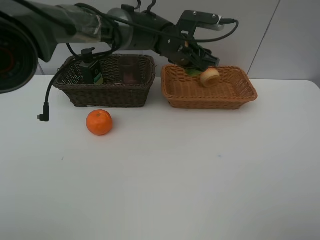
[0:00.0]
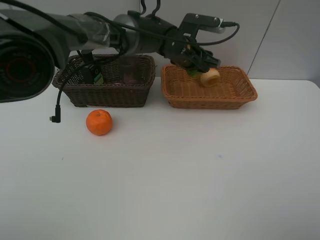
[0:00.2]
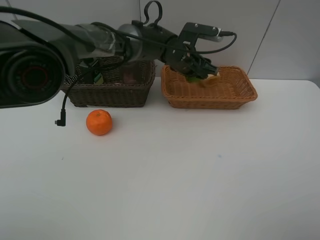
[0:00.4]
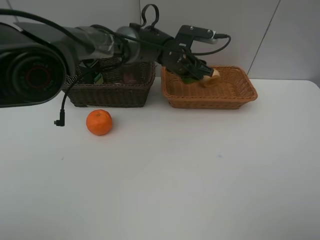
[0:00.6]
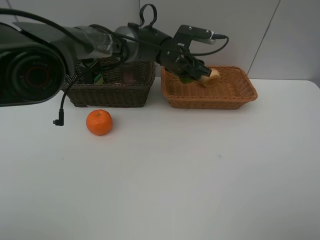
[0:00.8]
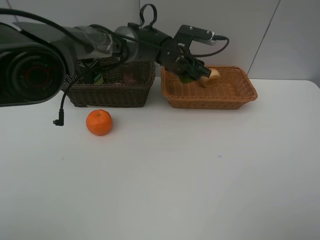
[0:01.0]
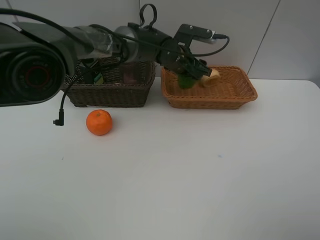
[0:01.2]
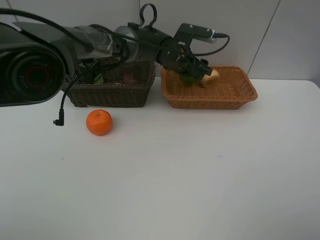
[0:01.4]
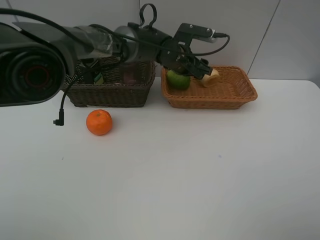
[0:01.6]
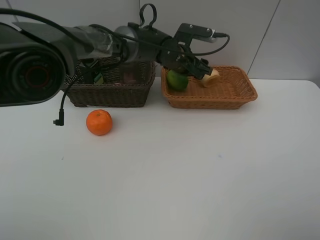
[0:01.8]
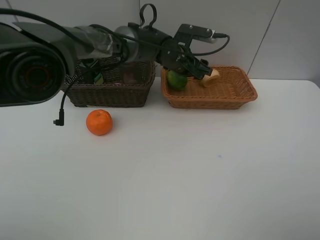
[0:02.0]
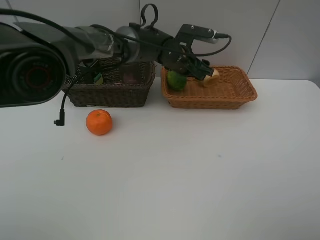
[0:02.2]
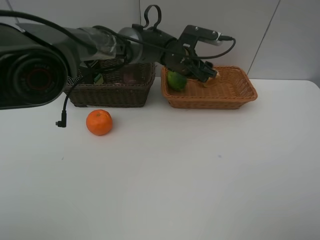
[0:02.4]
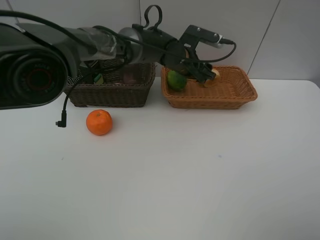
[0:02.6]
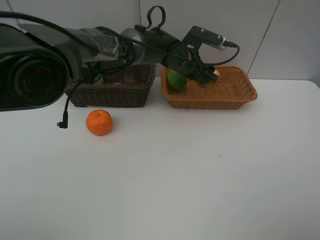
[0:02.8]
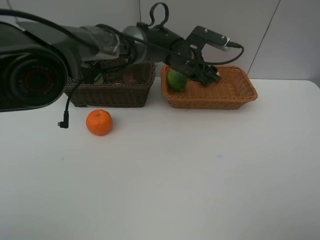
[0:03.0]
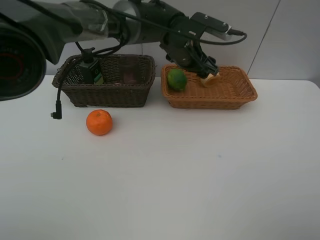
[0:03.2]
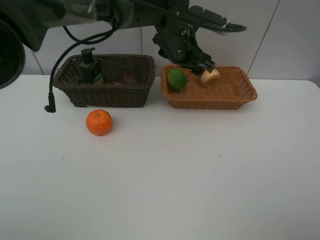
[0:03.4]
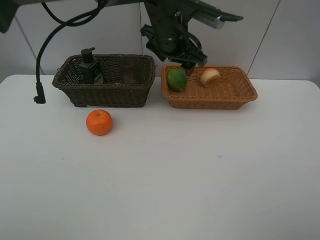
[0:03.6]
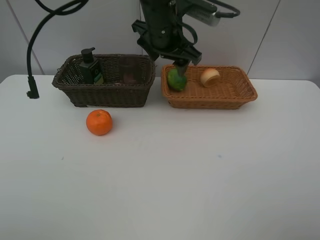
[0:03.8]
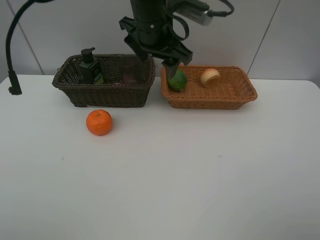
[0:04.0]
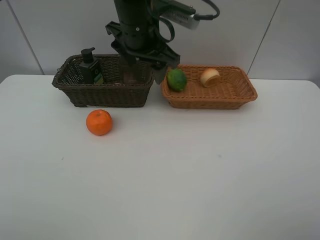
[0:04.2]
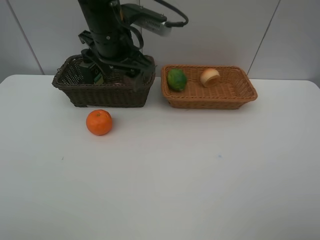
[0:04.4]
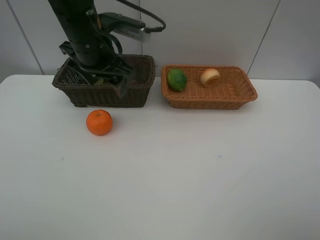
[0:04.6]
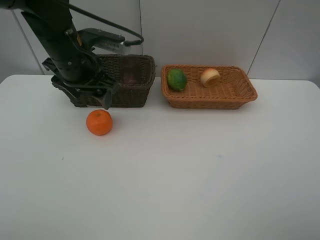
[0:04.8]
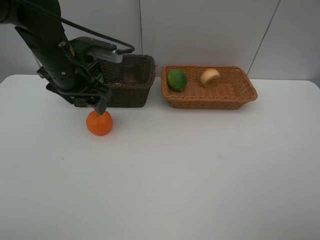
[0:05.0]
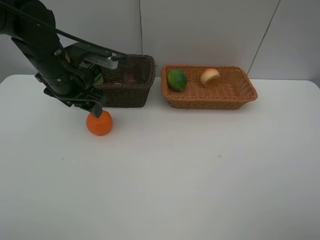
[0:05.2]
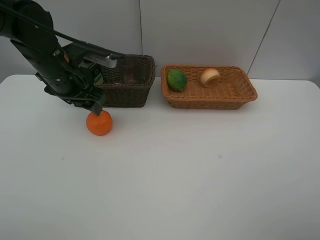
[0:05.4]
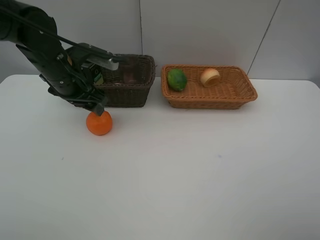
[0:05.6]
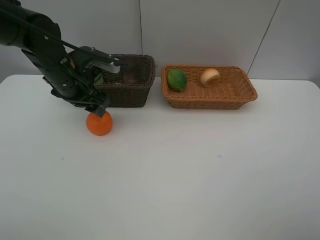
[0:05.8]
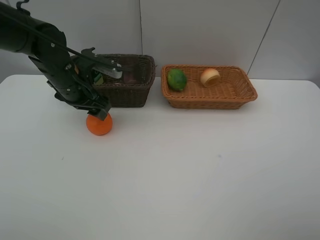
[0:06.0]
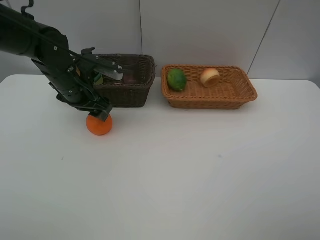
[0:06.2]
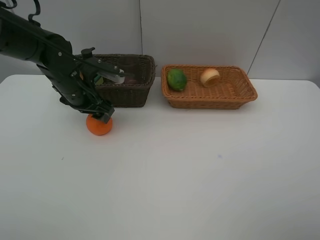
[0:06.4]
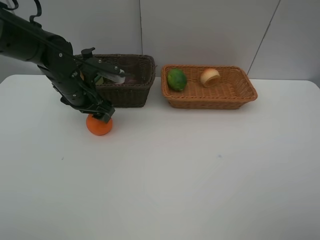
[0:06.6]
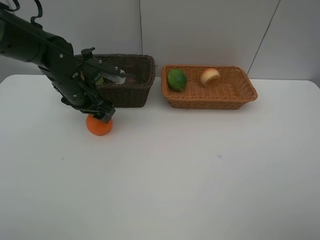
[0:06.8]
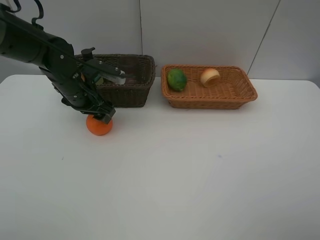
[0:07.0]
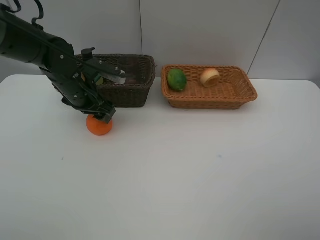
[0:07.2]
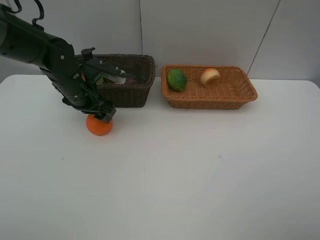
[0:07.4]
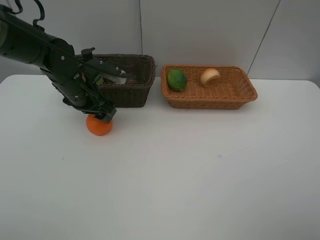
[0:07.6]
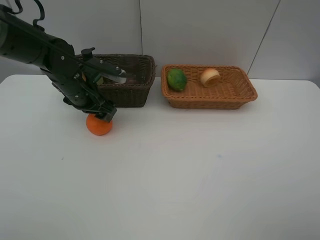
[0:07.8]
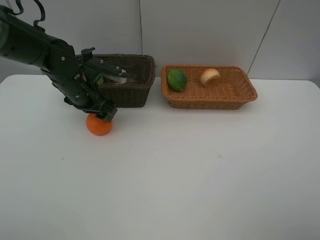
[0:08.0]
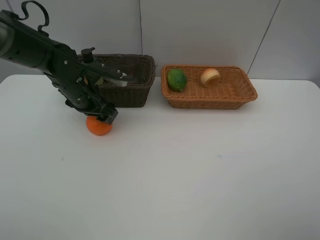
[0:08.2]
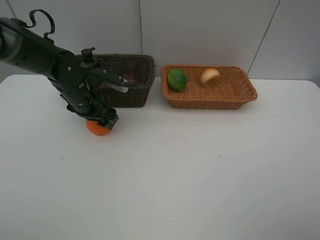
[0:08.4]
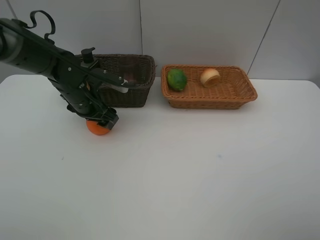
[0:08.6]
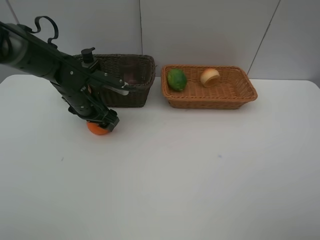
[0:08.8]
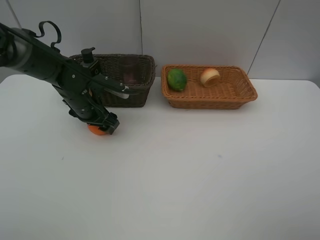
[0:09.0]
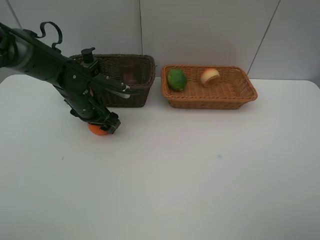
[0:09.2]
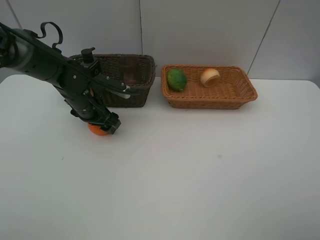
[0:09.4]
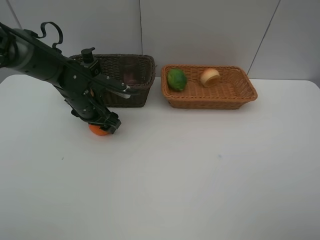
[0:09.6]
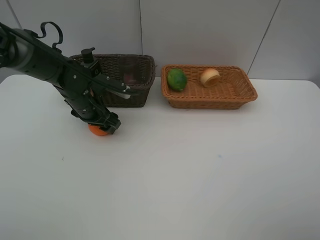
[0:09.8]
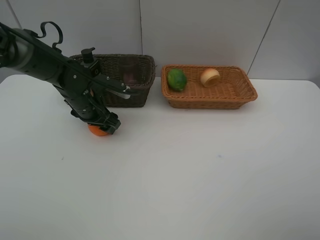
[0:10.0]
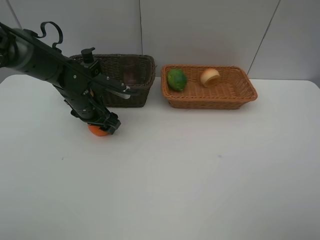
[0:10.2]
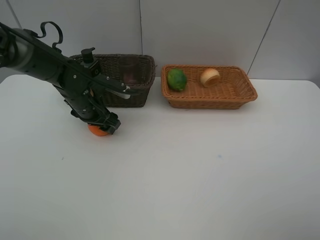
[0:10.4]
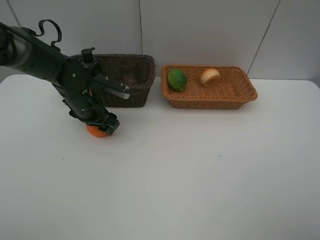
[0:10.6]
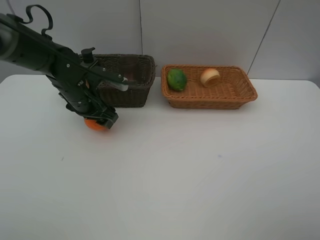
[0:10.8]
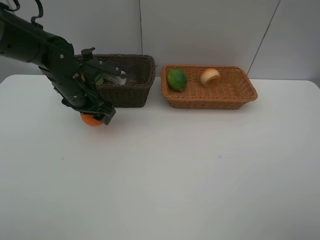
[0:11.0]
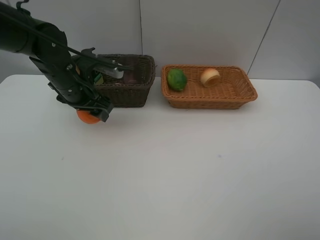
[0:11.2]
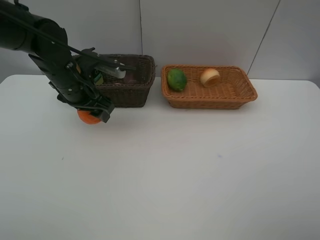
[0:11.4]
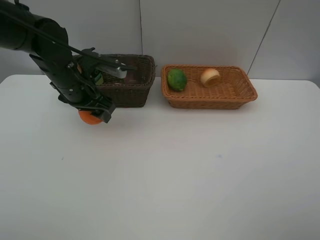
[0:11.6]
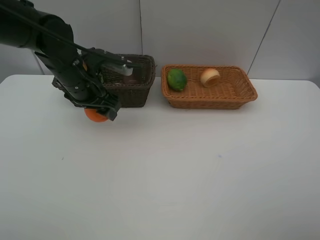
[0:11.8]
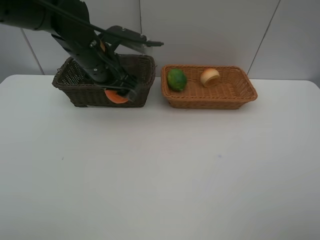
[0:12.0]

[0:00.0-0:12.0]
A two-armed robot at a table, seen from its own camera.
Task of the whole recording: place multiple objects separately in different baskets.
0:00.0 to 0:03.0: The grippers make only small movements.
0:03.0 to 0:04.4: The left gripper heads to the left, upward and backward, covering some 20 cm.
0:04.4 to 0:06.0: The left gripper is displaced downward and to the left by some 15 cm.
0:06.0 to 0:07.6: The grippers make only small movements.
0:07.6 to 0:09.0: The grippers move only a little.
0:09.0 to 0:10.4: Both grippers stay put.
0:10.4 to 0:12.0: The left gripper goes about 15 cm upward and to the right.

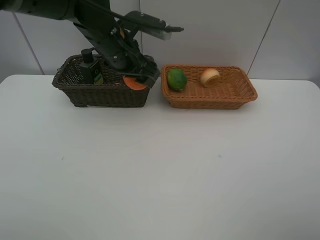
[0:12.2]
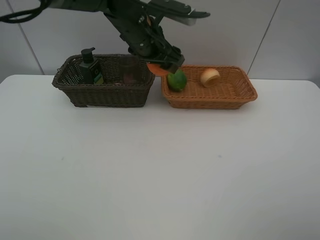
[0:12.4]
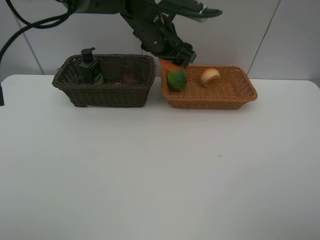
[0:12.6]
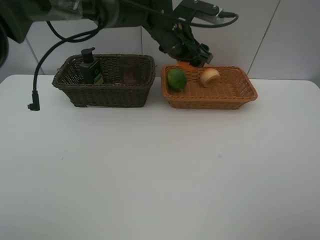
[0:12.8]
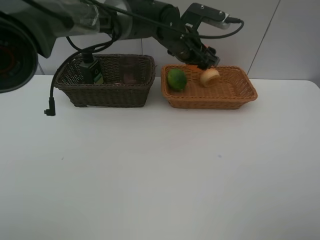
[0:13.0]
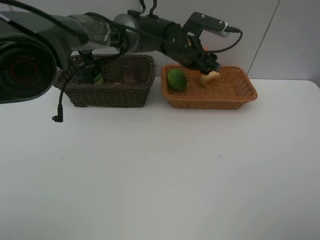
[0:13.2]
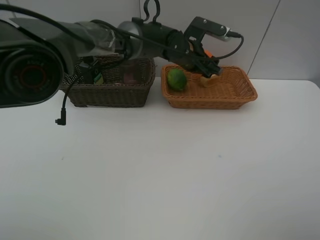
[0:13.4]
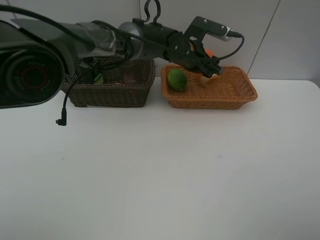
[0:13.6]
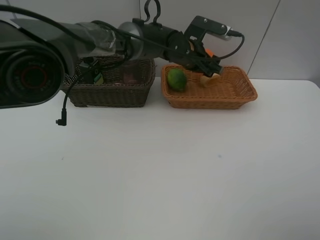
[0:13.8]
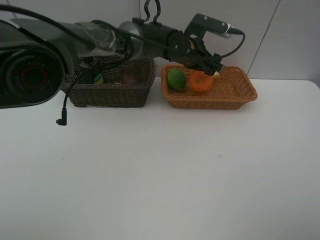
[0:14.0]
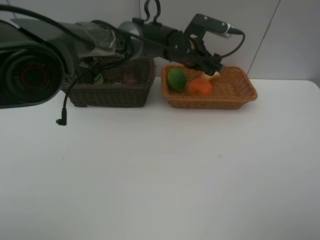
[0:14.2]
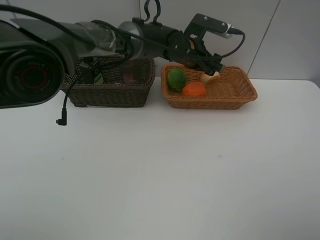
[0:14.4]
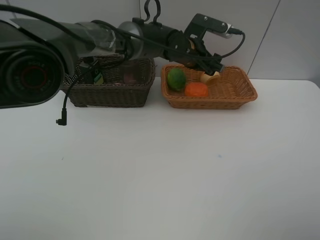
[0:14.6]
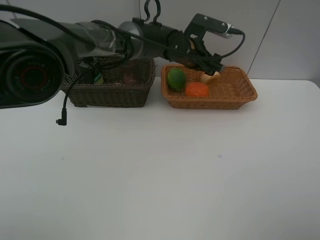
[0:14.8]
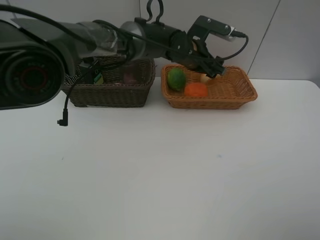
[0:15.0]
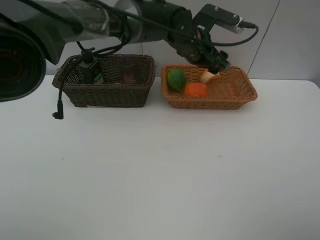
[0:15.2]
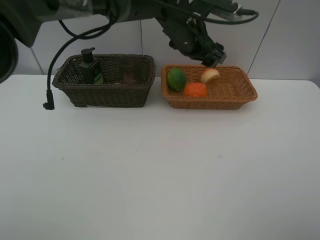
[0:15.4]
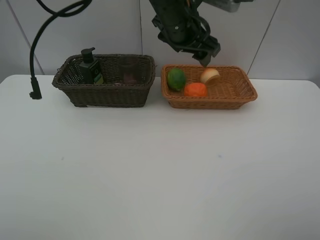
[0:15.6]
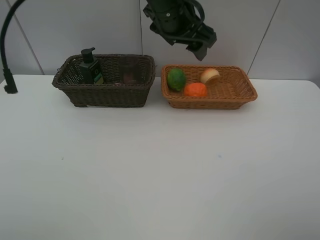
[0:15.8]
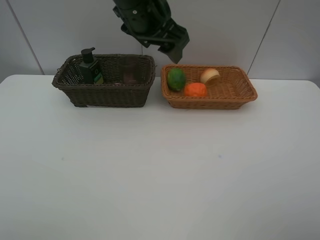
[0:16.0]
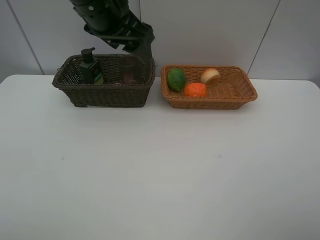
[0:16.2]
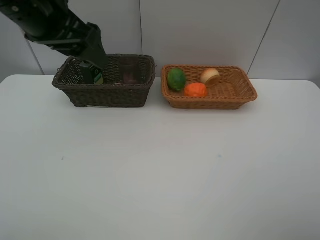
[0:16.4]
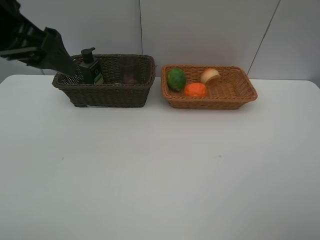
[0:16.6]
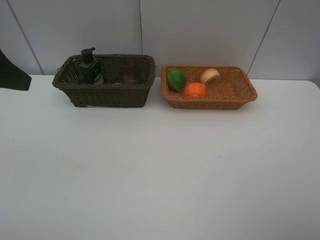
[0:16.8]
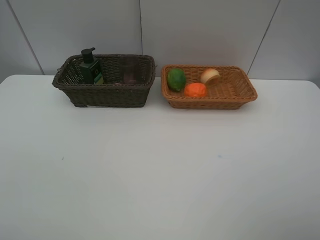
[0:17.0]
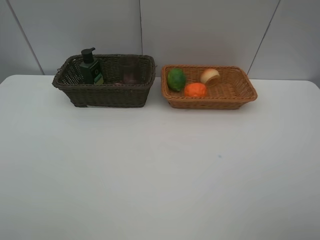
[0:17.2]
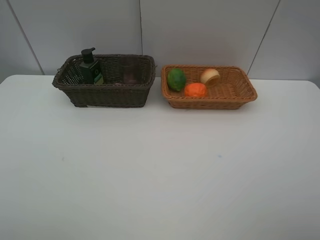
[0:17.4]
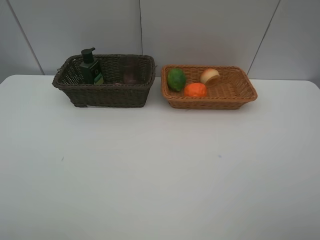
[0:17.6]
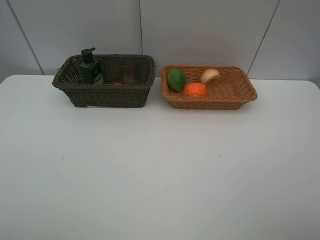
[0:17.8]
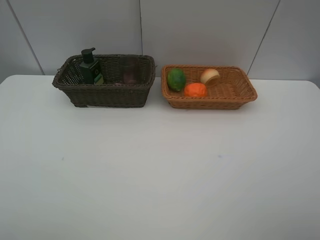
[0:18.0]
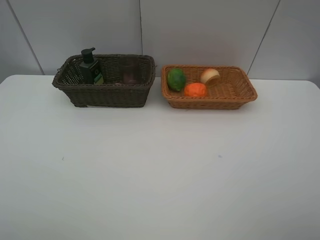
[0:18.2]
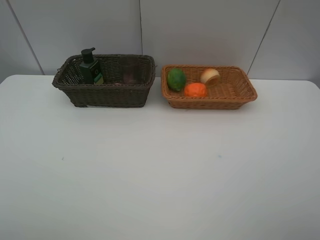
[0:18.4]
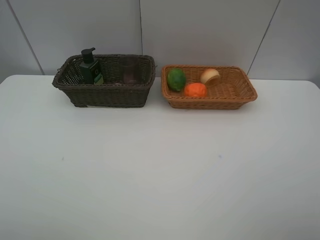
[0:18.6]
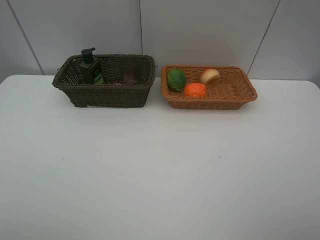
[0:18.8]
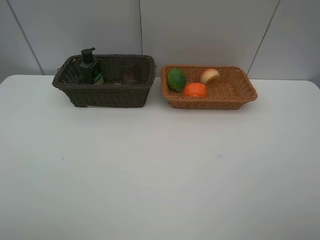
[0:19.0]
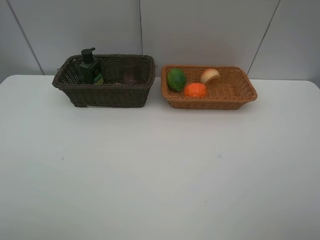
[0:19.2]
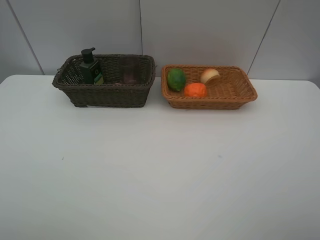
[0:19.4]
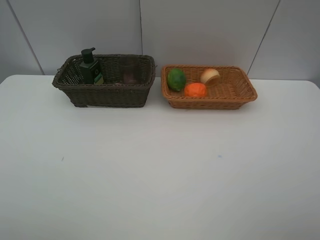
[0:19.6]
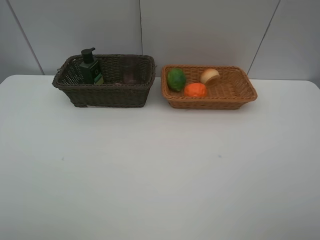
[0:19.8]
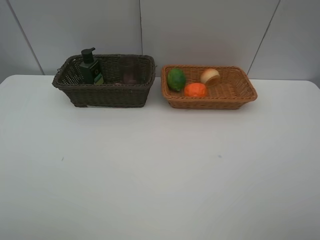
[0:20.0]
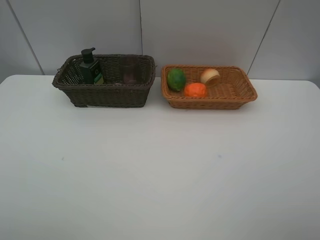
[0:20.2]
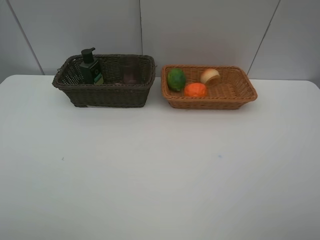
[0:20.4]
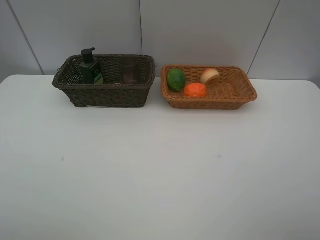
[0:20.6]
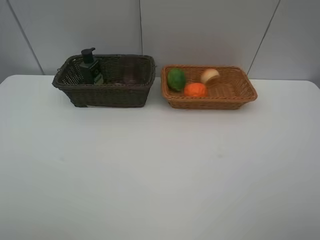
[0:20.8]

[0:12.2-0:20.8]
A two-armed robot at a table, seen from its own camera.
Task of the whole recording: place multiple objects separately in different baskets.
0:12.2 to 0:13.6: The left gripper heads to the right, forward and downward, covering roughly 15 cm.
0:13.6 to 0:15.0: Both grippers stay put.
0:15.0 to 0:16.6: The left gripper is displaced to the left, backward and upward by approximately 40 cm.
0:16.6 to 0:18.0: The left gripper travels backward by about 25 cm.
0:19.4 to 0:20.8: Neither gripper changes place.
